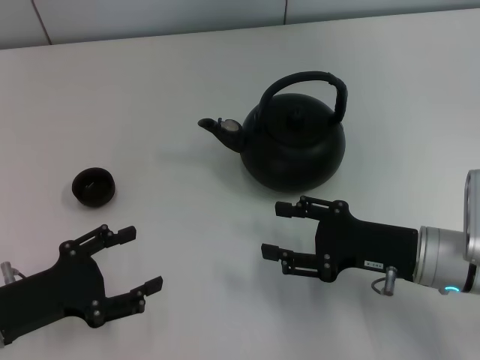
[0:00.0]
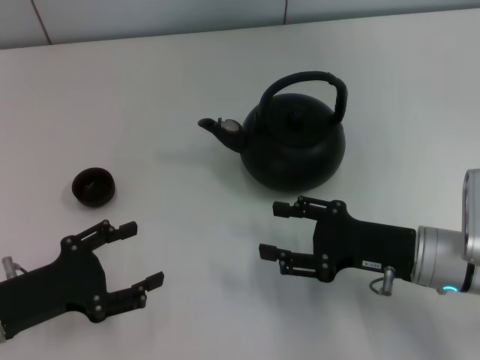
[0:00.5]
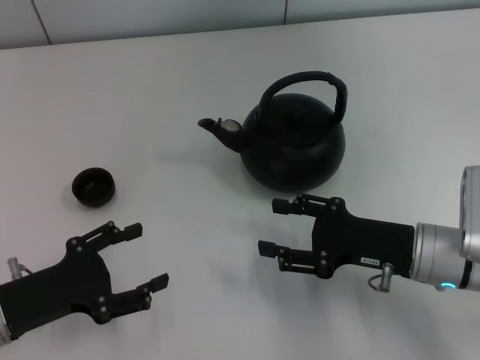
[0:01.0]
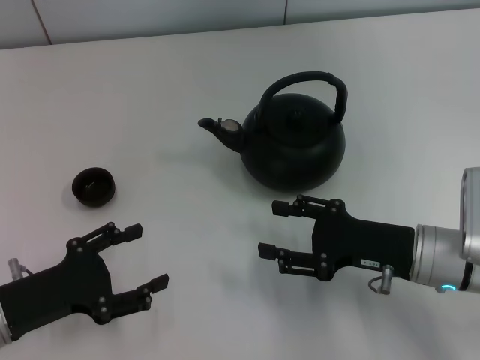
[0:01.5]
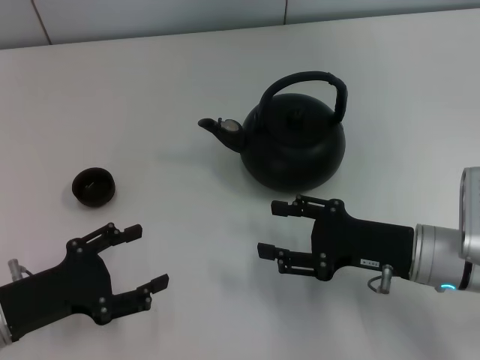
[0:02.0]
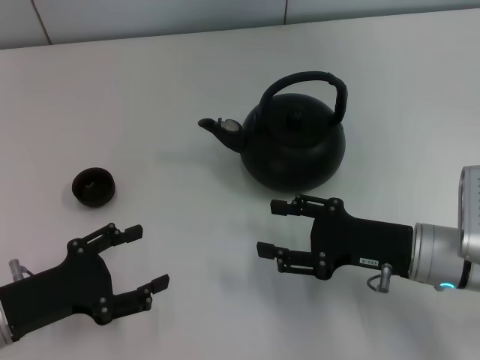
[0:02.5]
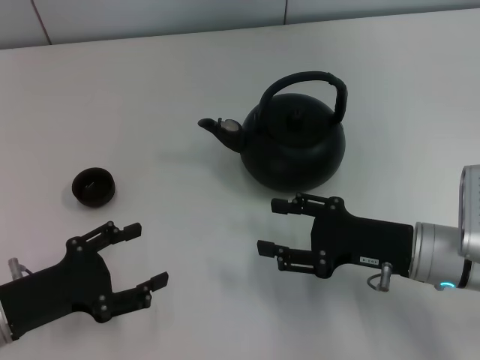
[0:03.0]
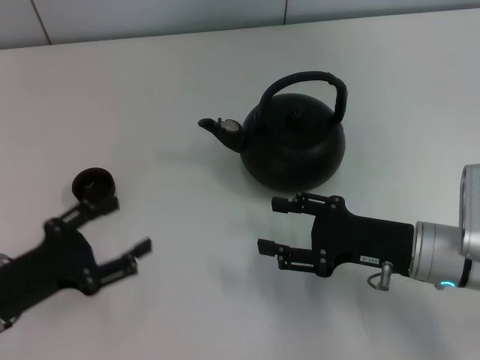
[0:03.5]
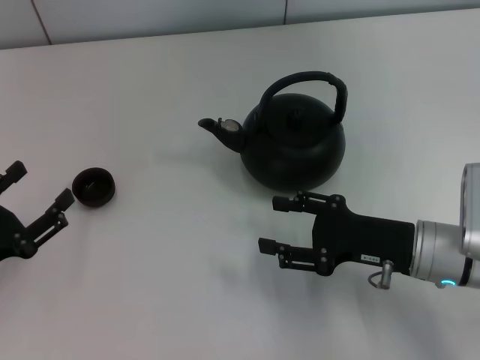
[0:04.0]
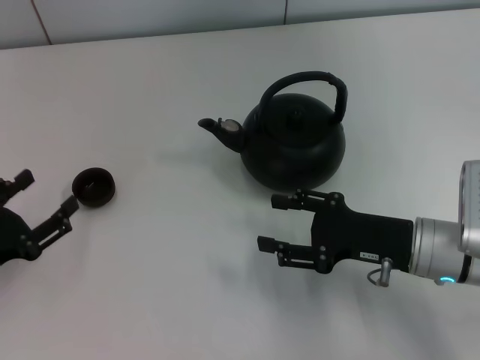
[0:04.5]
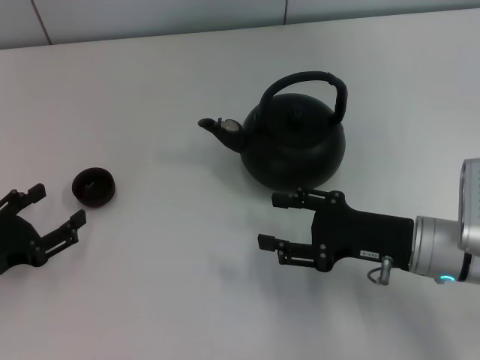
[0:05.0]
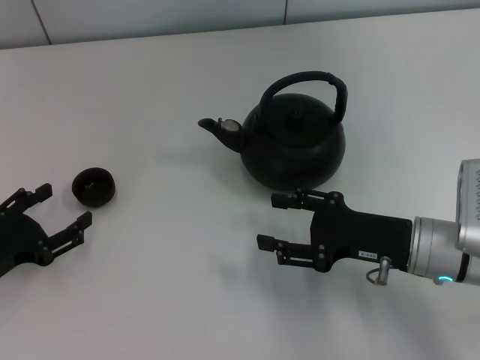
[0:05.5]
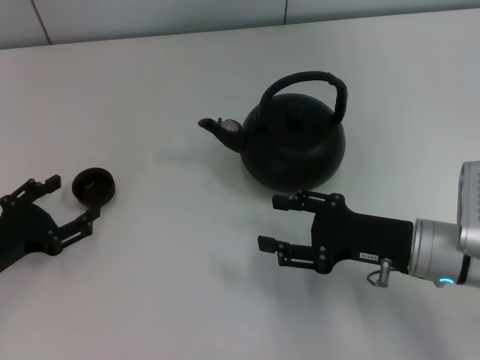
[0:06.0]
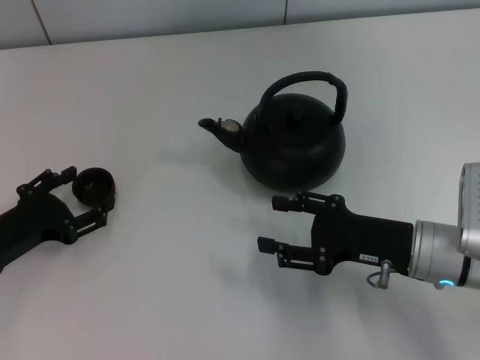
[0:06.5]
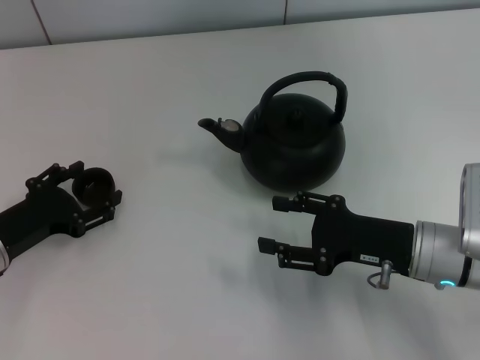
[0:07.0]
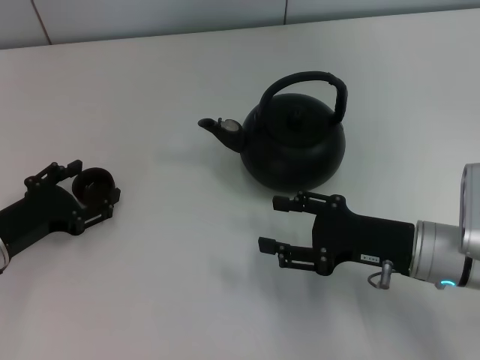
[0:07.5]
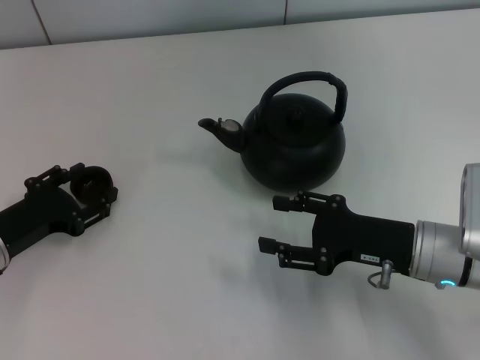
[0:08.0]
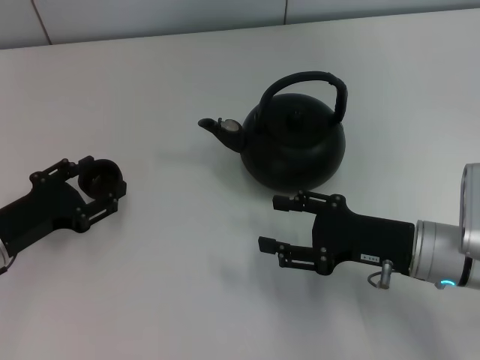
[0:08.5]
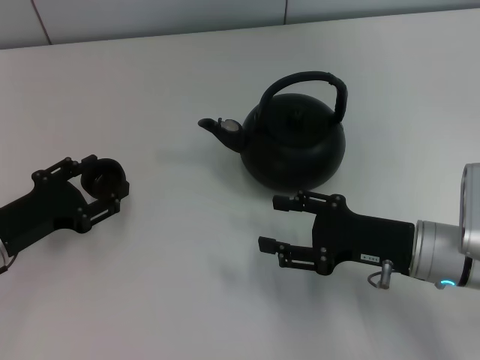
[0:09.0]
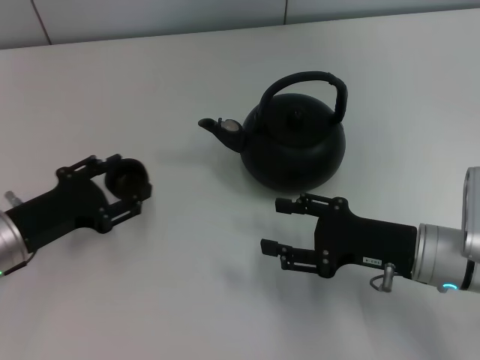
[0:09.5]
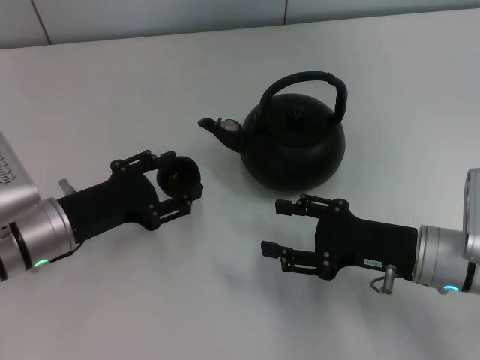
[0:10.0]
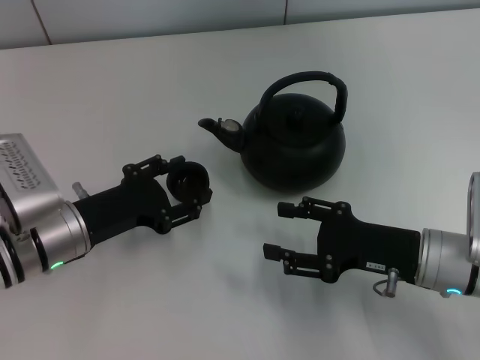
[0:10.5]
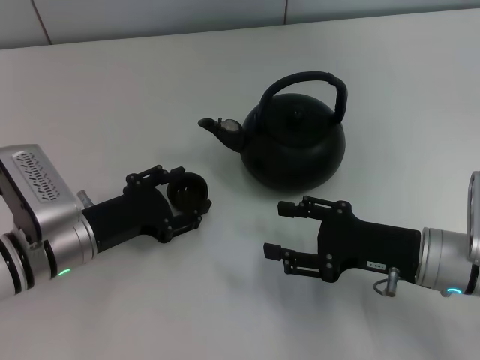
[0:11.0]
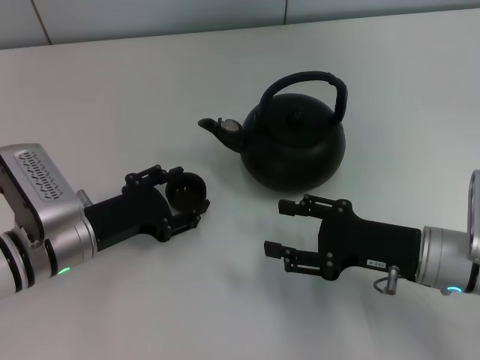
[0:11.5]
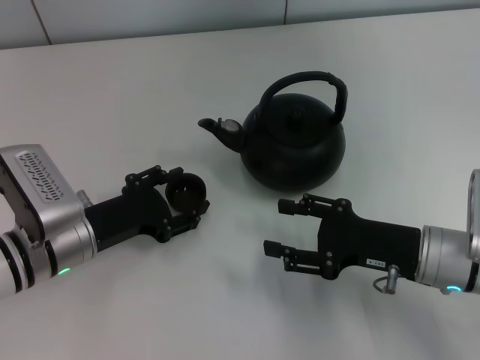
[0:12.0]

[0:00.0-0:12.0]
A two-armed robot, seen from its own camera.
Task of the whole recording: Grasp the handle of the teapot with one hand and pour tea into the teacup.
Step, 0:00.0 to 0:09.0: Pick up the teacup with the left gripper.
0:00.0 to 0:02.0: Both grippers stay about where they are.
0:04.0 to 0:06.0: The grippers make only small movements.
0:06.0 to 0:08.0: The left gripper closes up.
0:08.0 to 0:10.0: The left gripper moves to the right, approximately 5 cm.
0:10.0 to 0:12.0: The grippers make only small movements.

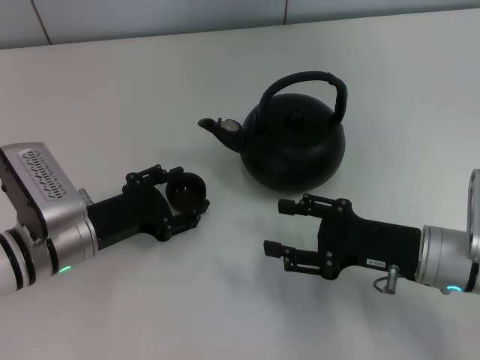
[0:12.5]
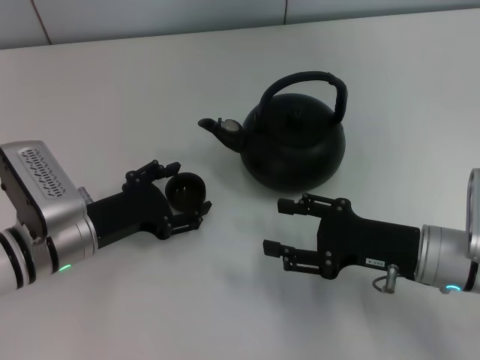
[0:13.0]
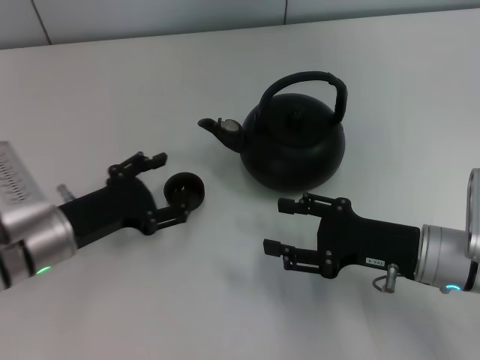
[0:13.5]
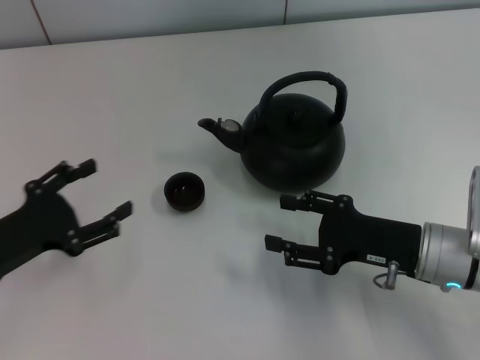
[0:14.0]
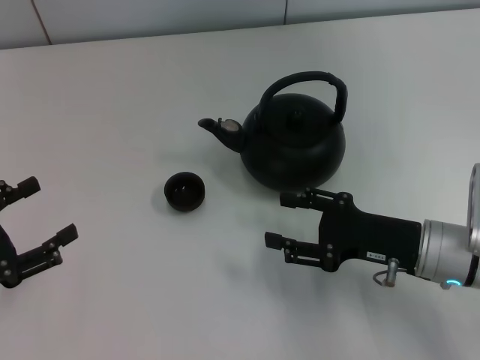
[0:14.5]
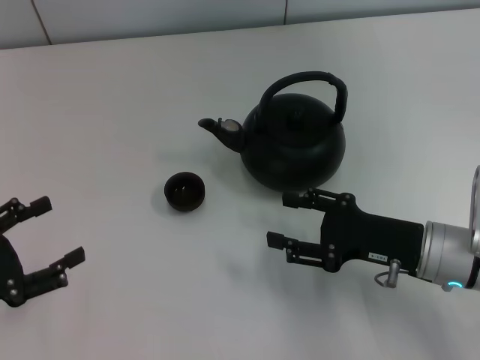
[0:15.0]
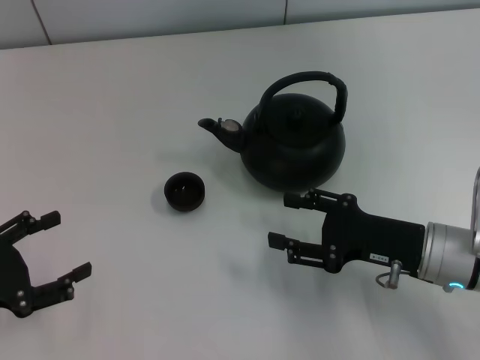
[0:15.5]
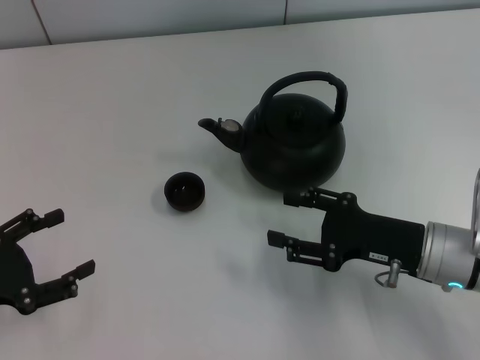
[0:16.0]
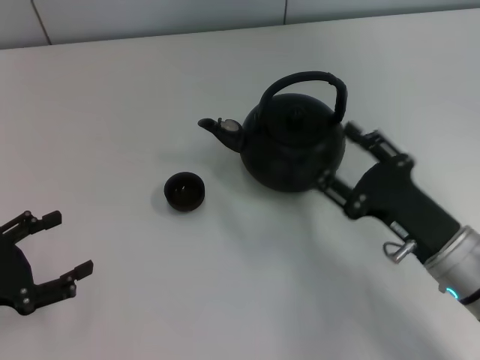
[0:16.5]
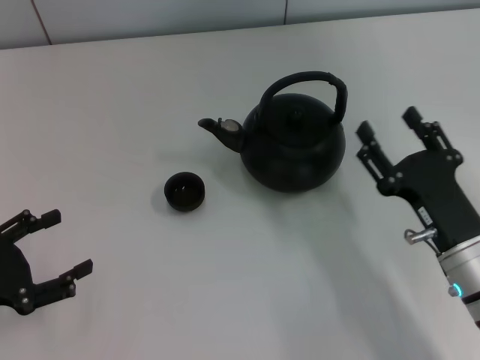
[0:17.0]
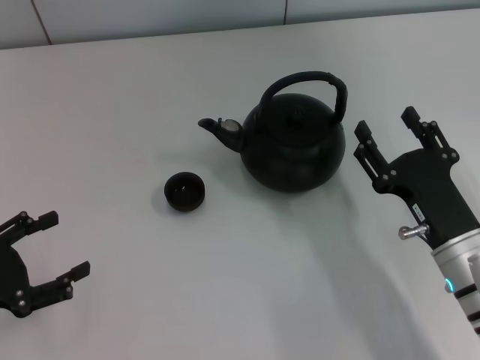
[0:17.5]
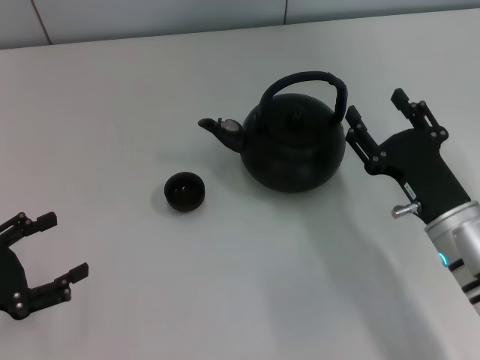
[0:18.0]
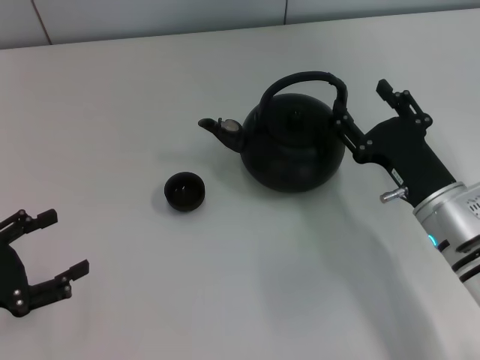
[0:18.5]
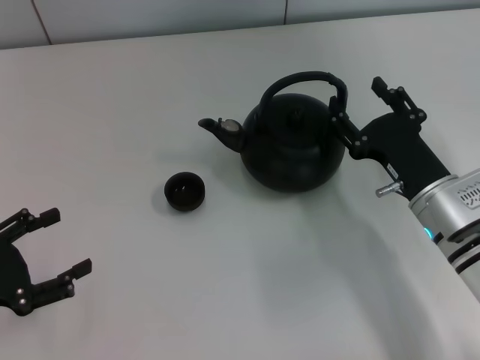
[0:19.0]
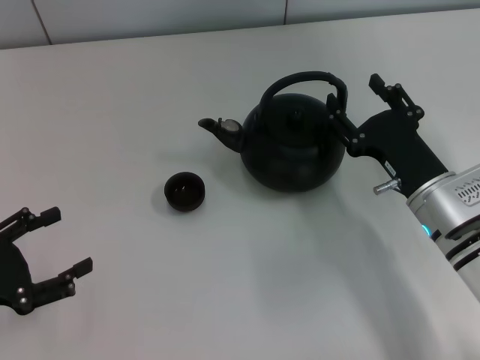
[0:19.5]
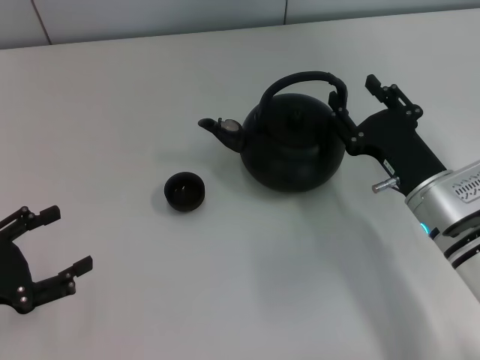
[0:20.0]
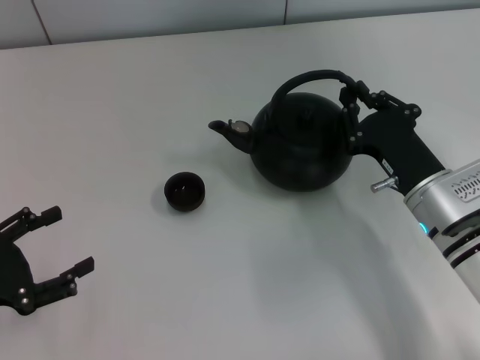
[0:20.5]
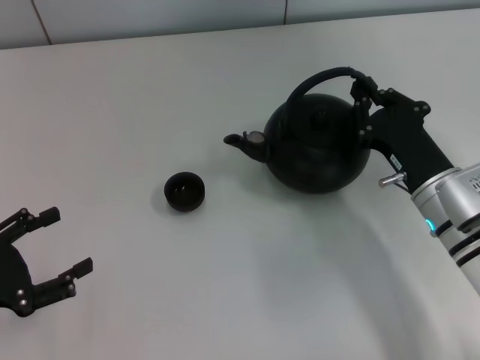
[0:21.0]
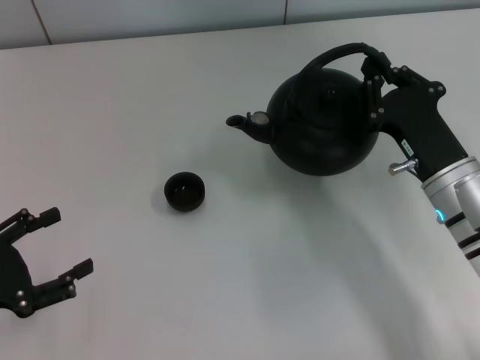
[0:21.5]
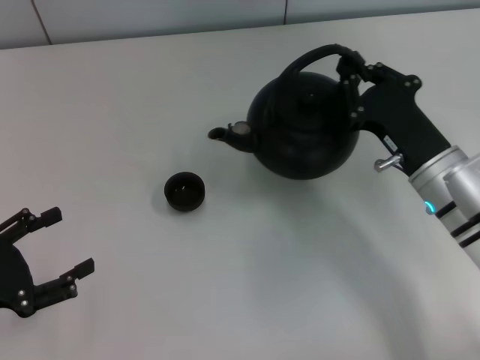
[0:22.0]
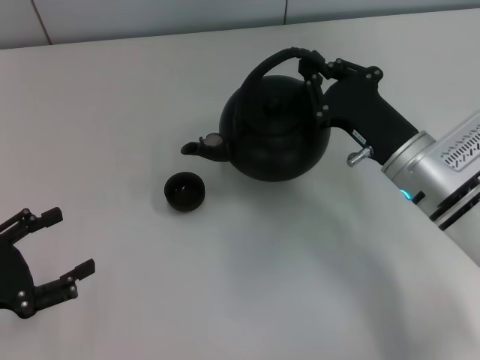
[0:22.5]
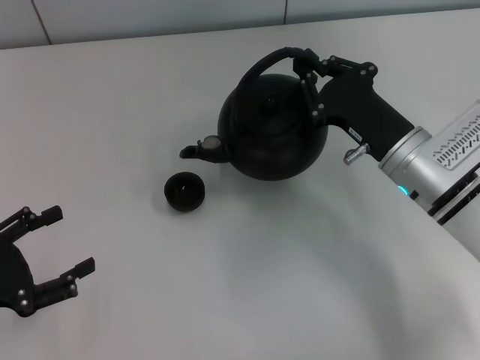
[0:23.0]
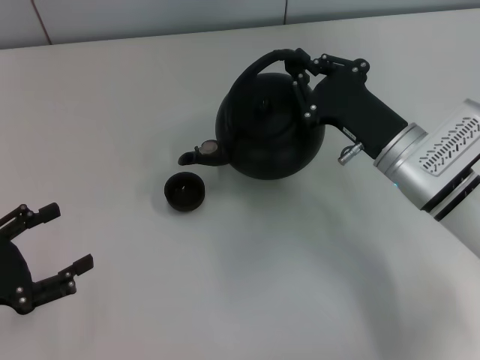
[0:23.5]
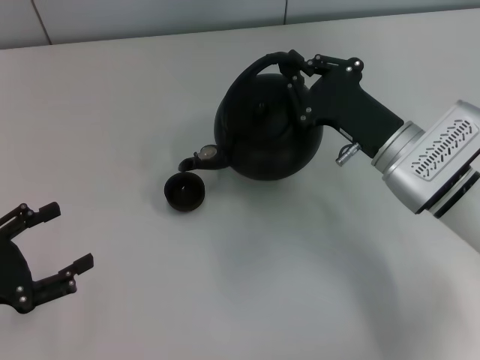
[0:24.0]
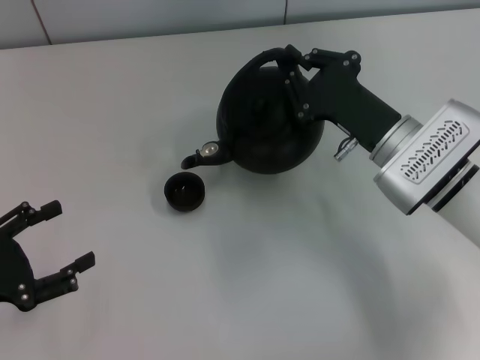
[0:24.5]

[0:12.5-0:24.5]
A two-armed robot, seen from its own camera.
Task of the whole recording: Grasp the handle of the teapot with one hand and pour tea into the teacup.
Step, 0:14.0 to 0:21.5: Pick up the teapot with the right gripper.
0:12.5 to 0:14.5: The left gripper is displaced to the left and backward by about 15 cm, and opens.
0:18.5 to 0:20.5: The right gripper closes its fingers.
0:20.5 to 0:22.5: The right gripper closes up.
0:22.5 to 0:24.5: The grippers stay close to where they were, moving slightly.

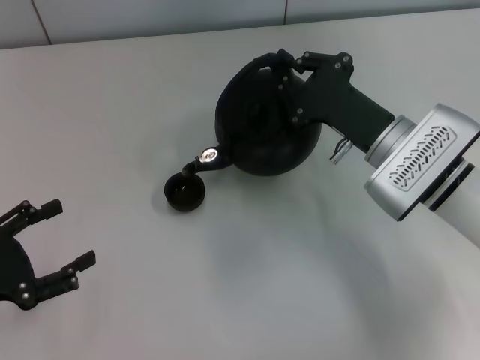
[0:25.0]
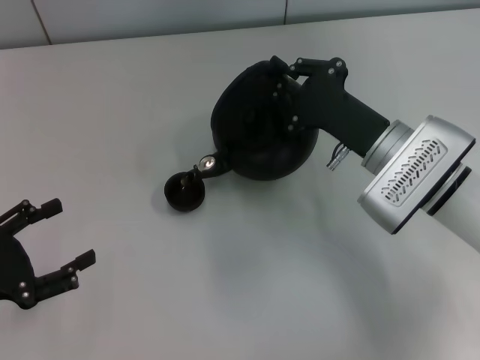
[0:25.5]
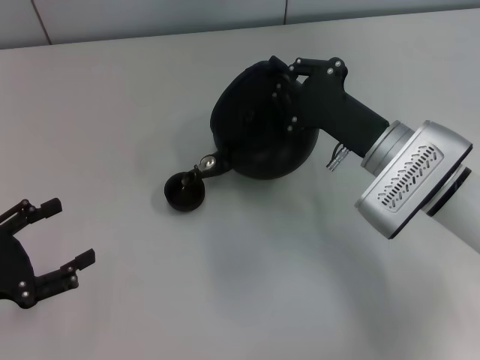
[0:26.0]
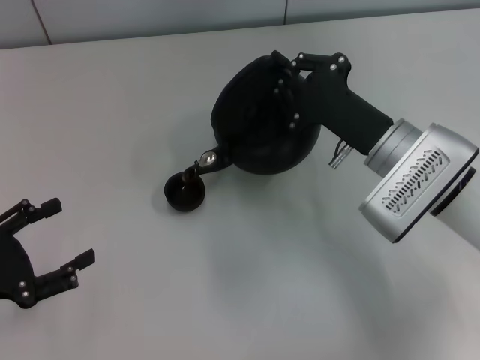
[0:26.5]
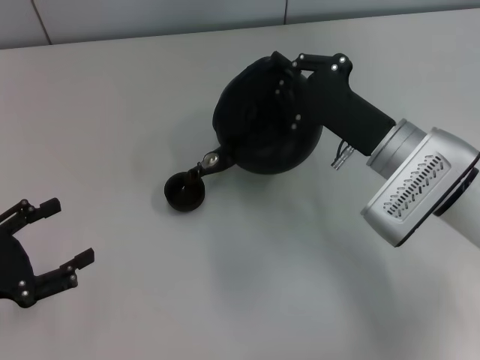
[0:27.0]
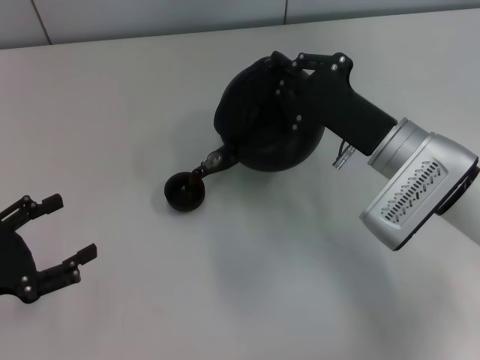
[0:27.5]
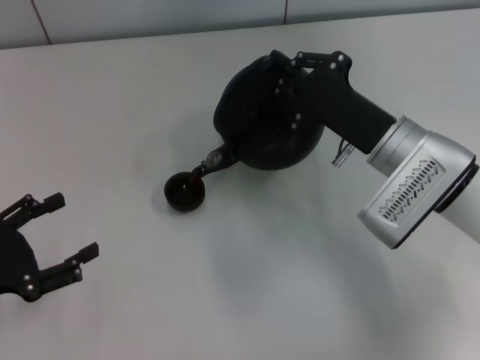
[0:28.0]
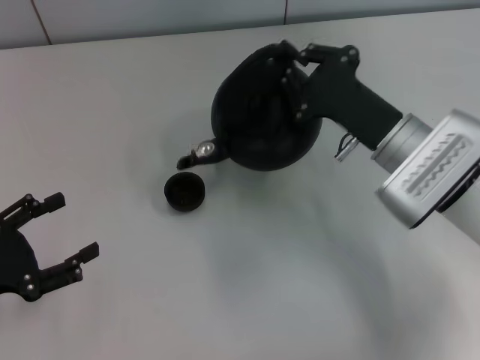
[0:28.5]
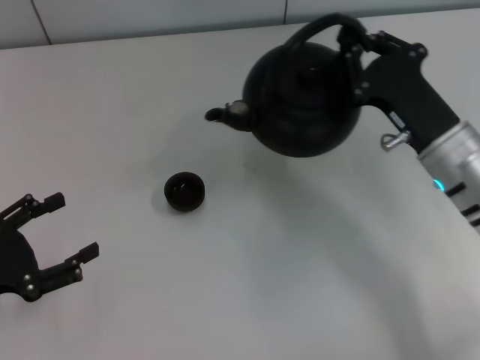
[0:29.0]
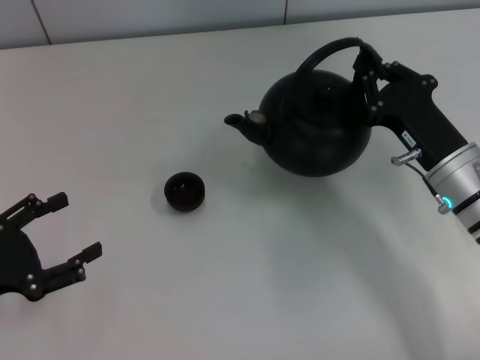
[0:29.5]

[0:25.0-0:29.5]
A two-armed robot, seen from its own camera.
Task of the whole recording: Grasp the handle of the teapot with one hand and pour tea into the teacup.
0:25.0 to 0:27.0: The grippers stay close to where they were, moving slightly.
0:27.0 to 0:29.5: The right gripper moves approximately 5 cm.
